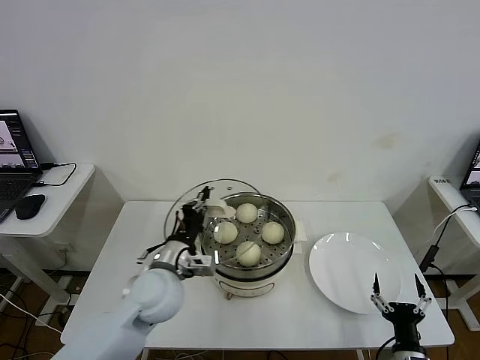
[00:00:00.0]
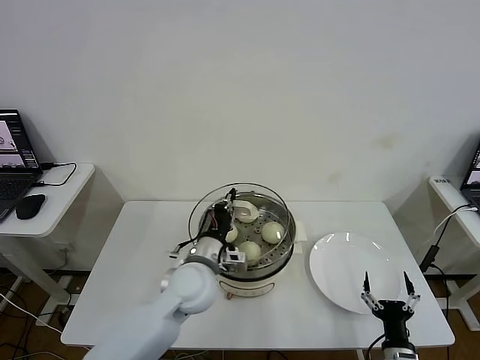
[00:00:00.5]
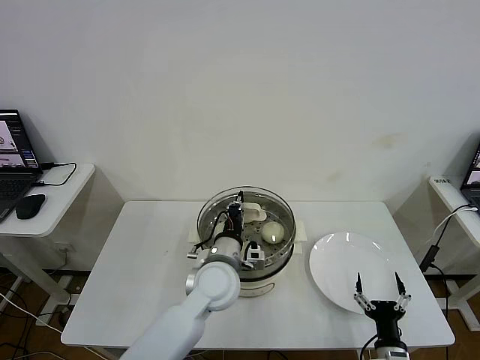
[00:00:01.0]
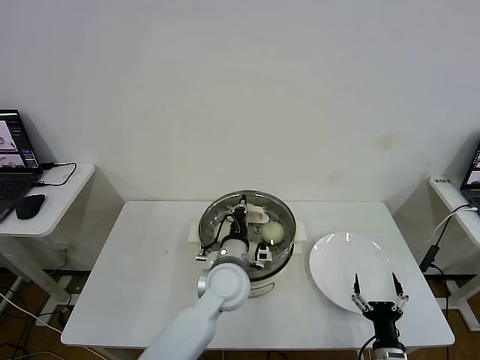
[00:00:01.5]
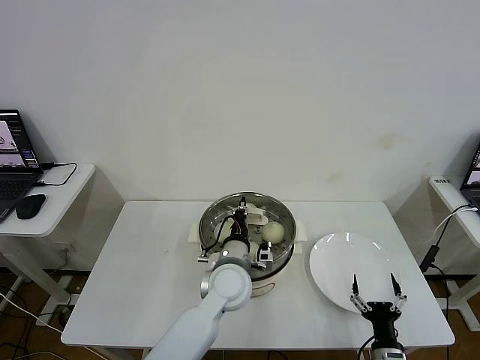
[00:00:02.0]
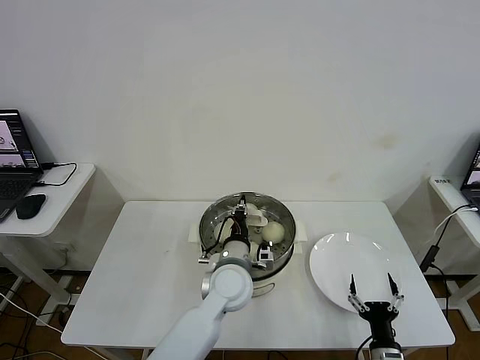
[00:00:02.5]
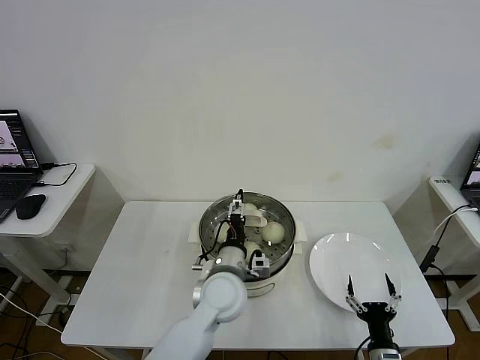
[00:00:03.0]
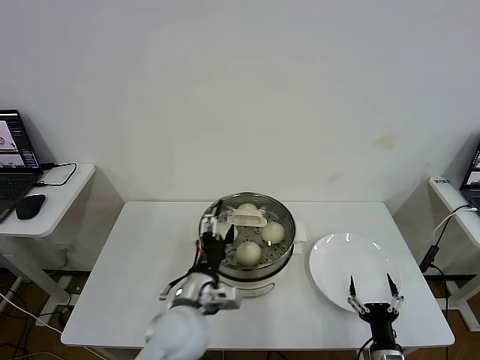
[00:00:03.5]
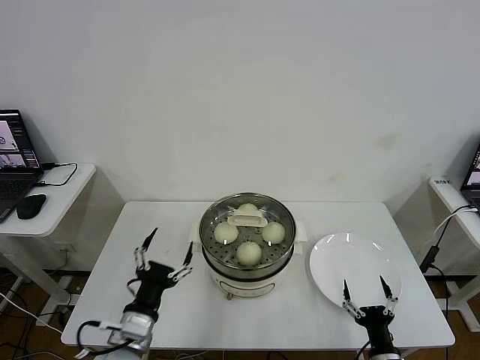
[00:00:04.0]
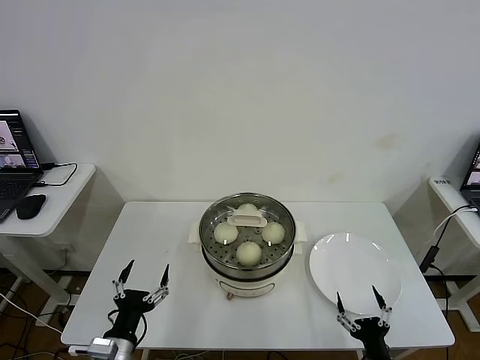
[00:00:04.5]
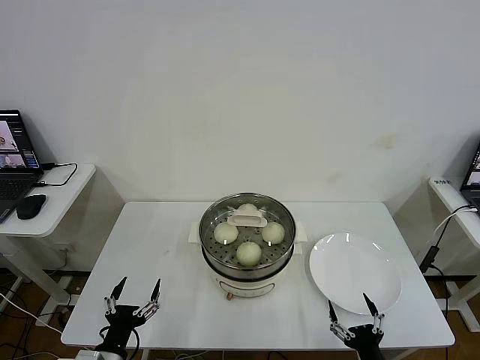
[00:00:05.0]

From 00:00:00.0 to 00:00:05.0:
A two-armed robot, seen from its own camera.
Step, from 00:00:00.0 to 00:00:03.5: Place the pot lid on the steamer with left gripper.
From 00:00:00.0 to 00:00:02.5: The left gripper heads to the right, covering approximately 15 cm.
From 00:00:02.5 to 00:00:05.0: The right gripper travels backward by some 5 cm. The left gripper travels to the left and backward by approximately 35 cm, and opens up.

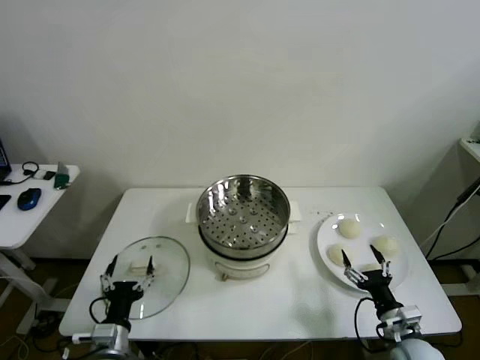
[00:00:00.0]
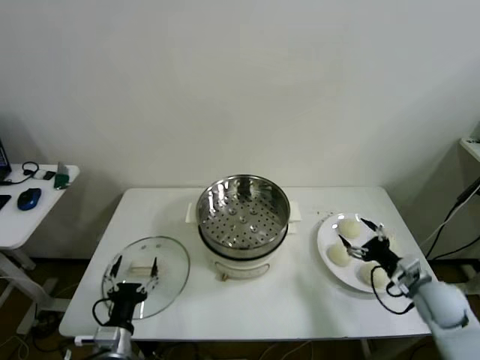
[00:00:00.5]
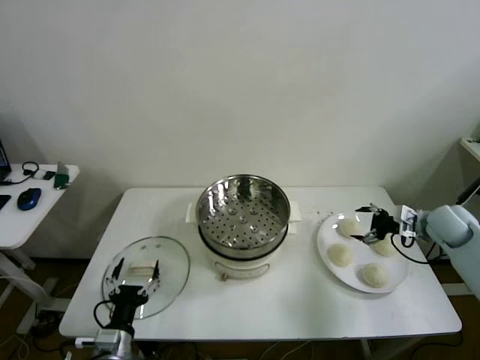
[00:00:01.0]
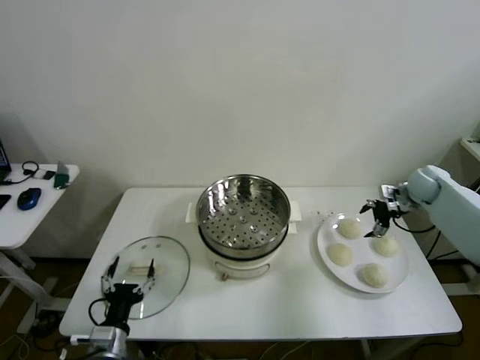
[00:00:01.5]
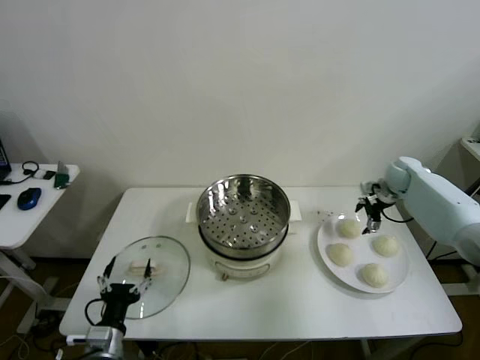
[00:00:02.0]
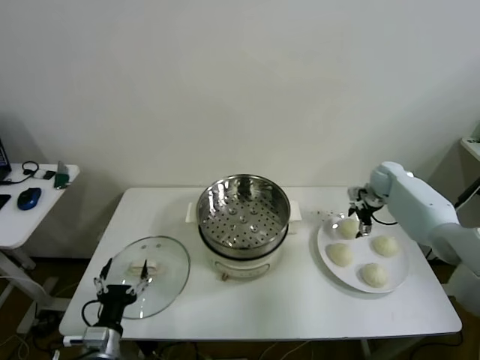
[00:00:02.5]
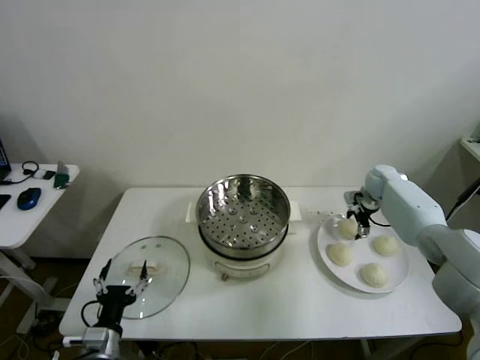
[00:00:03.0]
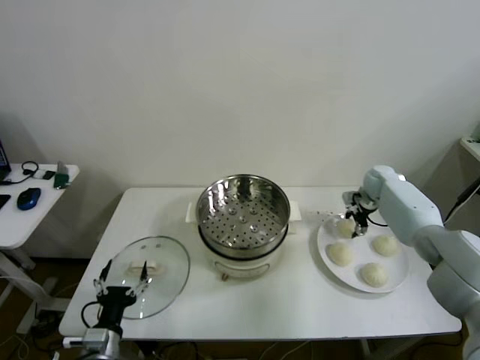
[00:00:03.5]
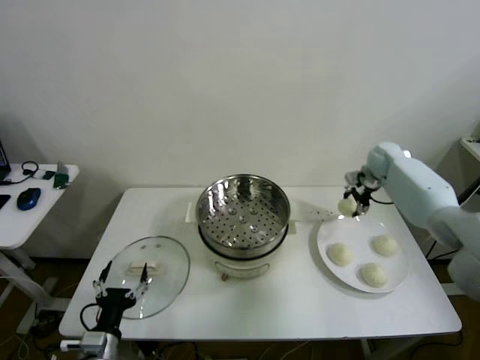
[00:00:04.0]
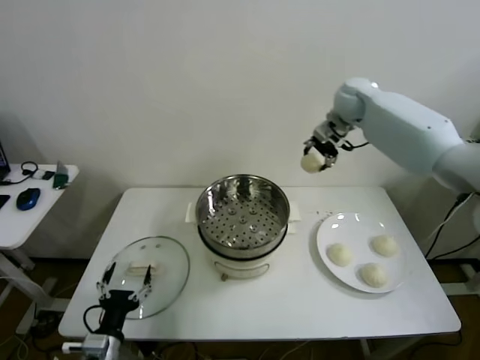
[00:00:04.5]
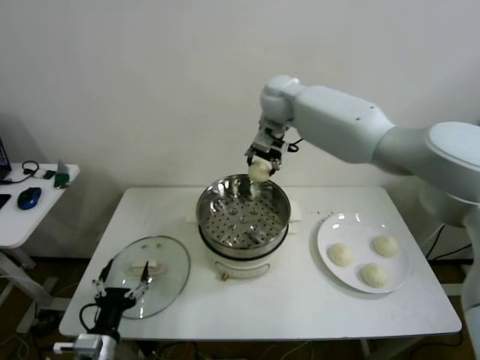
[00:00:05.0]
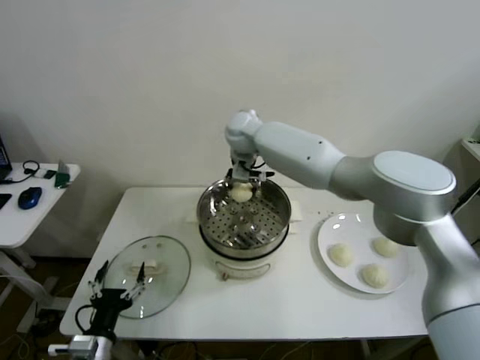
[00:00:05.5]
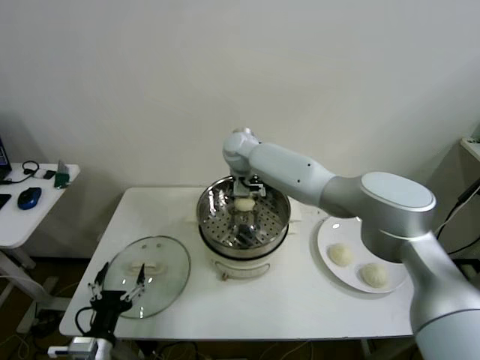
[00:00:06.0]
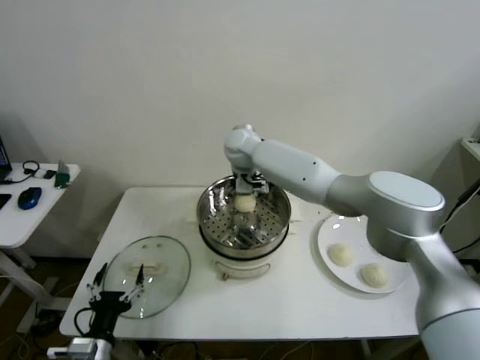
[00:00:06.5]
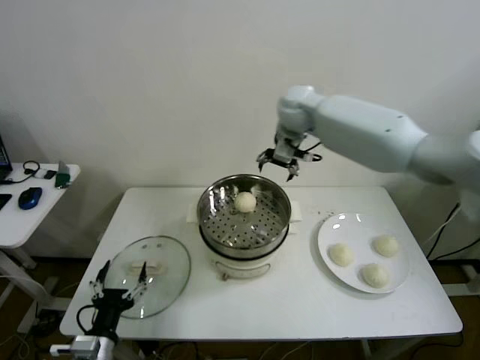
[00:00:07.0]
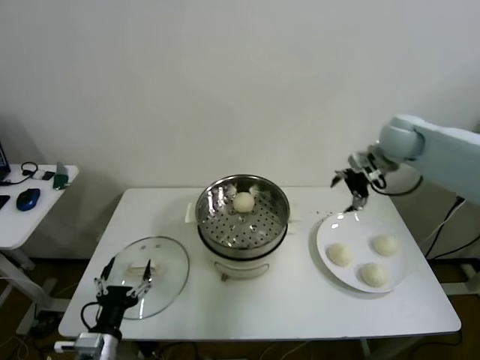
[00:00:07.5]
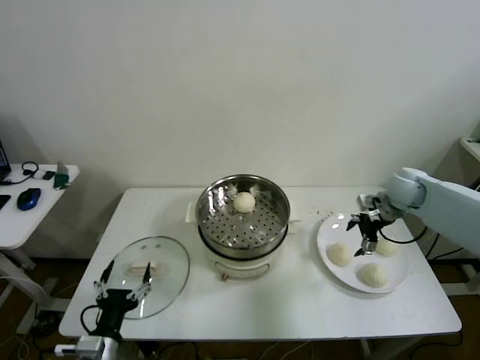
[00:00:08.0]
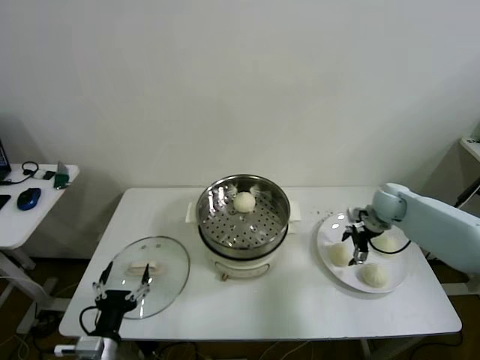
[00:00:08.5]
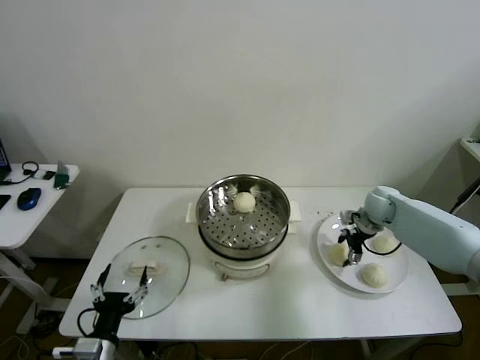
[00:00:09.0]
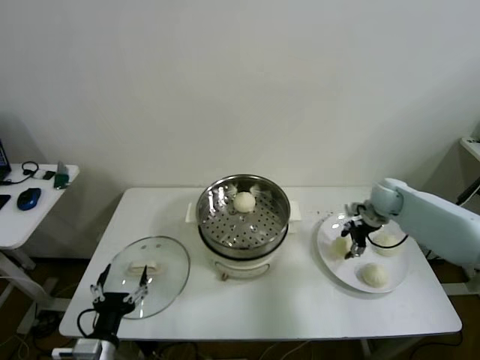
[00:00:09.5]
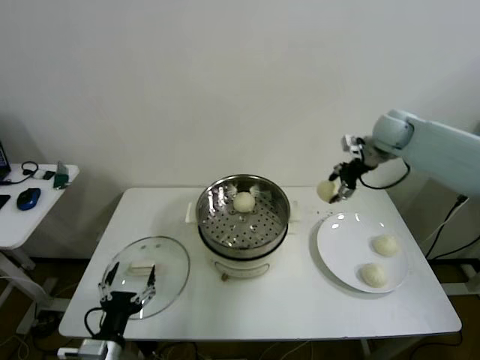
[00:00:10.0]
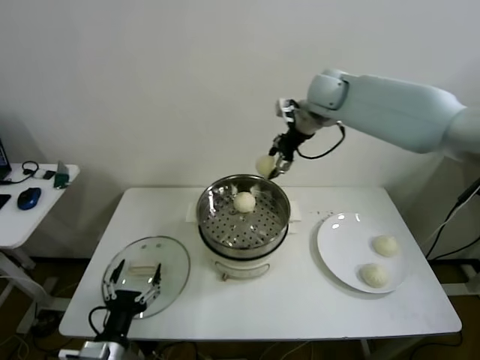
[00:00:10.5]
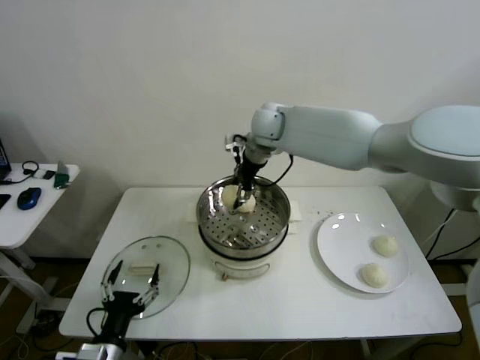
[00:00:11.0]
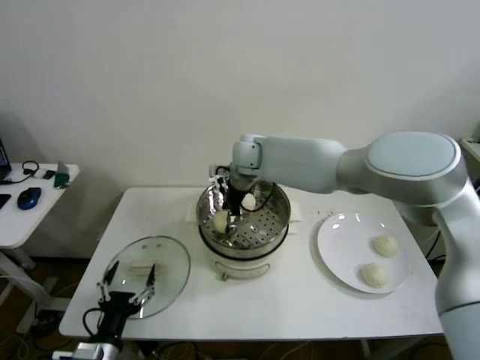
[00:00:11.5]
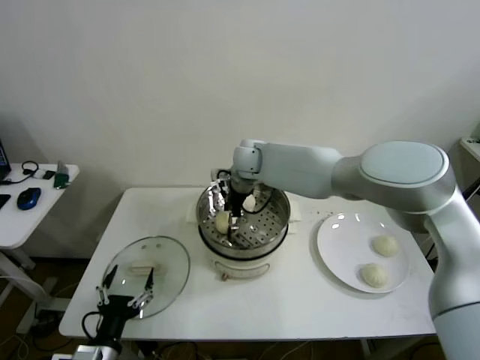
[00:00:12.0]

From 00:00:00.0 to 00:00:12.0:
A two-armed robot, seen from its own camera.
Step, from 00:00:00.0 to 00:00:03.0: Grasp the baozi in the plate with right gripper.
Step, from 00:00:04.0 to 00:00:06.0: Place the baozi on the steamer with right gripper.
Step, from 00:00:06.5 to 00:00:09.0: Grasp the baozi in the plate with right gripper.
Step, from 00:00:09.5 to 00:00:12.0: Place the baozi on the steamer with right gripper.
From 00:00:02.0 to 00:00:04.0: The right gripper ends up about 5 cm from where it was, and closes up.
From 00:00:04.0 to 00:00:06.0: The right gripper shifts roughly 40 cm to the left.
From 00:00:06.0 to 00:00:08.0: The right gripper shifts about 40 cm to the right, and opens its fingers.
From 00:00:08.0 to 00:00:10.0: The right gripper goes some 15 cm upward and forward, and closes.
From 00:00:10.0 to 00:00:12.0: The right gripper shifts approximately 35 cm to the left, and opens its fingers.

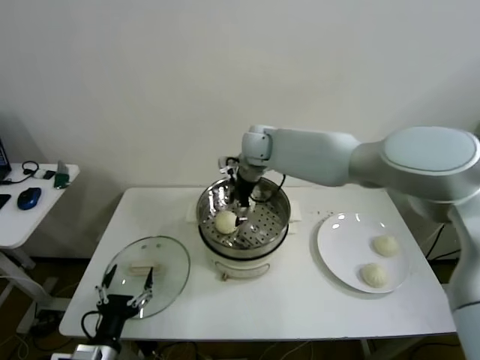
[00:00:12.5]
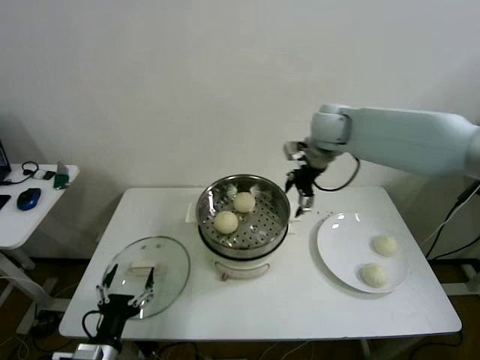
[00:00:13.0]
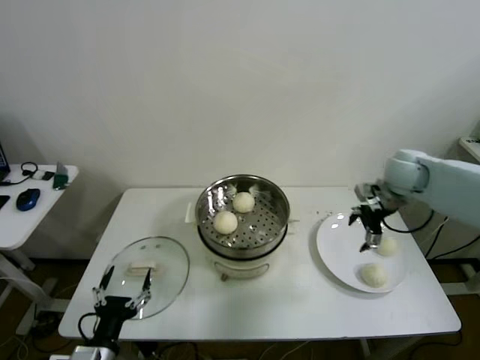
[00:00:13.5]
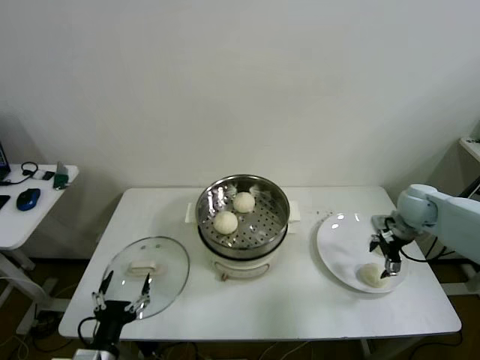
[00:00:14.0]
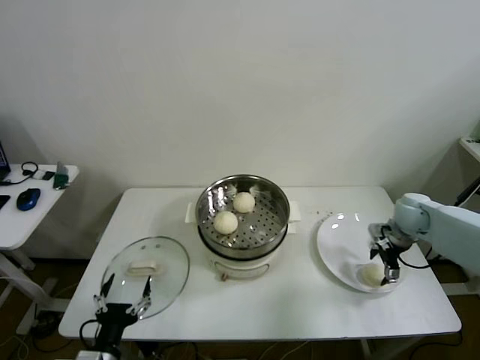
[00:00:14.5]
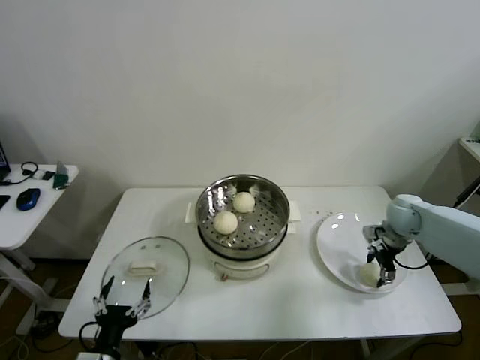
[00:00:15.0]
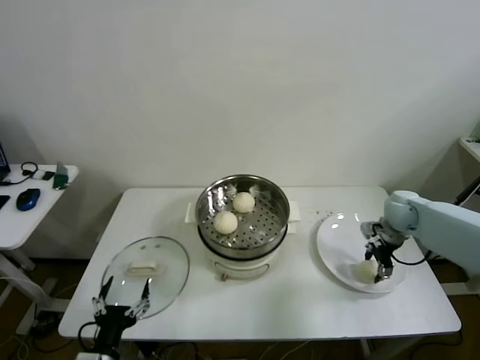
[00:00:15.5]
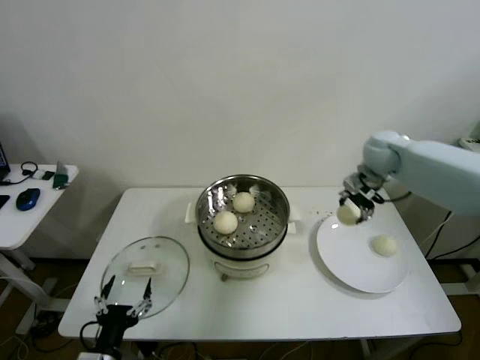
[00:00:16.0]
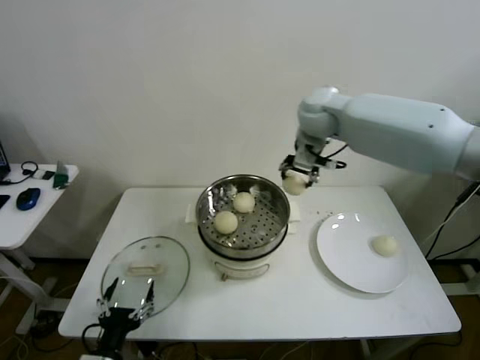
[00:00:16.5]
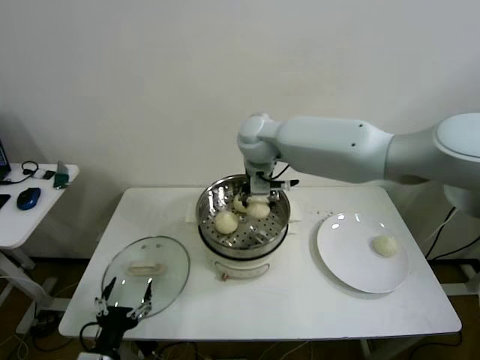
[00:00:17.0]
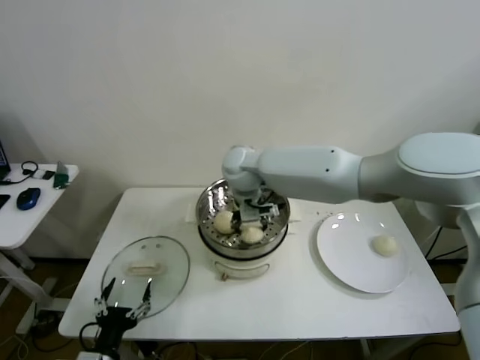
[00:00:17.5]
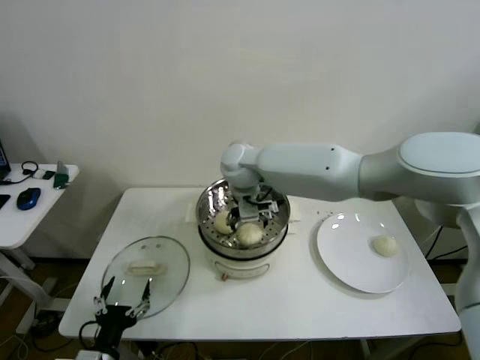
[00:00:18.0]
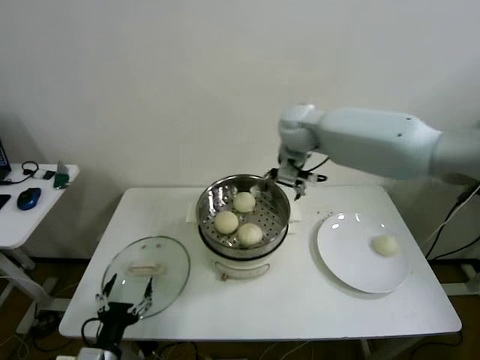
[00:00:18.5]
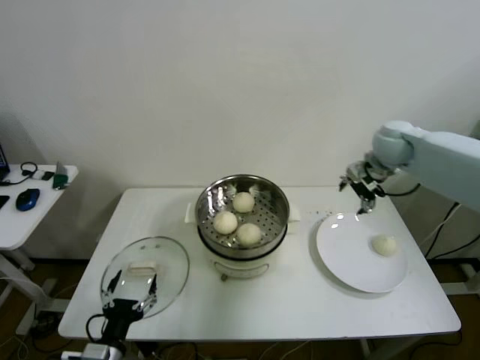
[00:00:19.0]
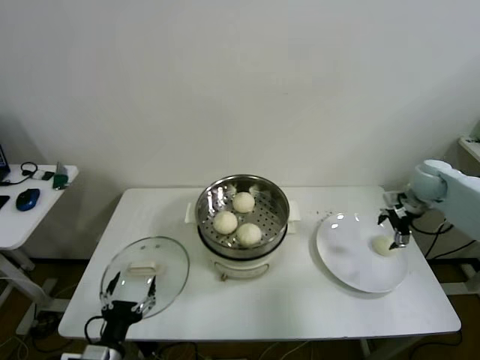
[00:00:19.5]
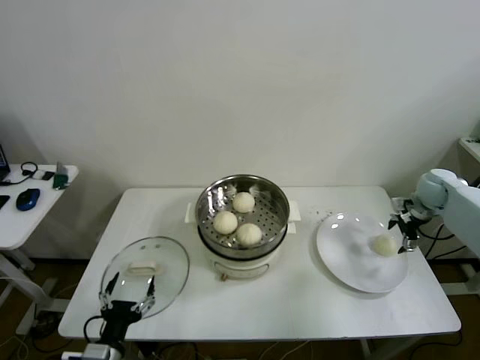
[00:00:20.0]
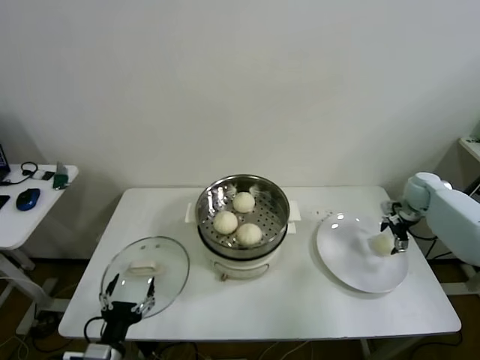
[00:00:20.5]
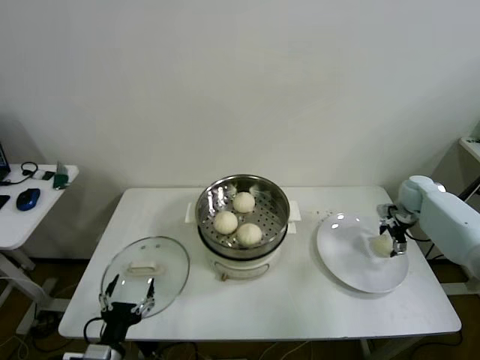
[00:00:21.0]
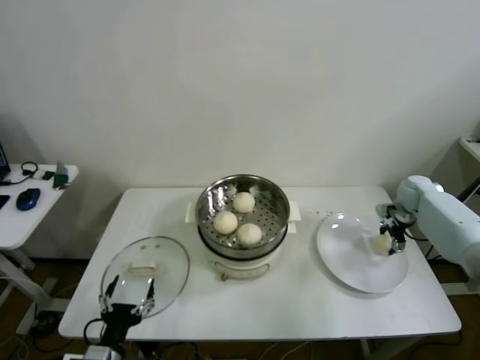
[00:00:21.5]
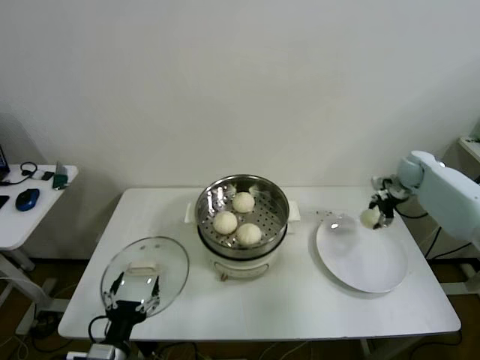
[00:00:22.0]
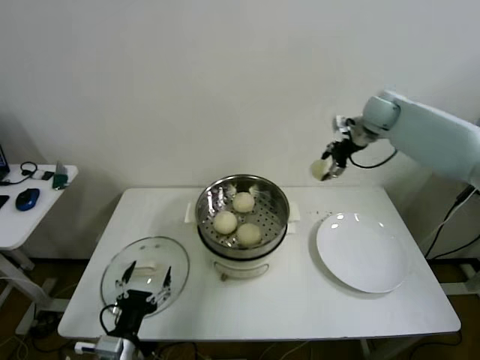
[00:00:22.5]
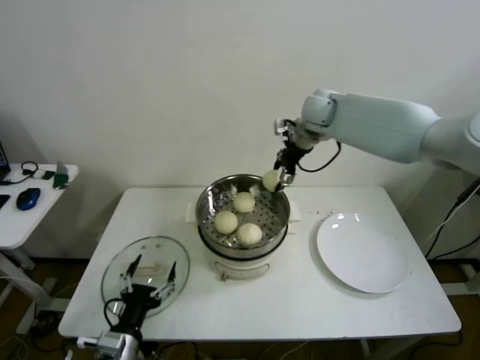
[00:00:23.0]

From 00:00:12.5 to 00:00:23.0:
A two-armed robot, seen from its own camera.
Step, from 00:00:12.5 to 00:00:15.0: Grasp the baozi in the plate with right gripper.
Step, from 00:00:15.5 to 00:00:17.5: Place the baozi on the steamer with right gripper.
Step, from 00:00:18.0 to 00:00:21.5: Grasp the baozi in the plate with right gripper.
From 00:00:12.5 to 00:00:14.5: The right gripper shifts approximately 40 cm to the right.
From 00:00:14.5 to 00:00:16.5: The right gripper goes some 35 cm to the left and upward, and closes up.
From 00:00:16.5 to 00:00:19.0: The right gripper is displaced to the right by roughly 20 cm, and opens.
From 00:00:19.0 to 00:00:21.0: The right gripper moves downward and to the right, roughly 25 cm.
From 00:00:21.0 to 00:00:23.0: The right gripper is displaced to the left and upward by about 40 cm, and closes.
